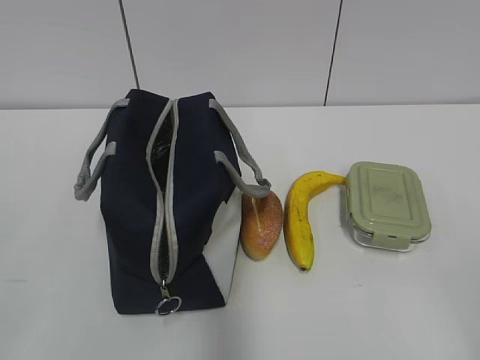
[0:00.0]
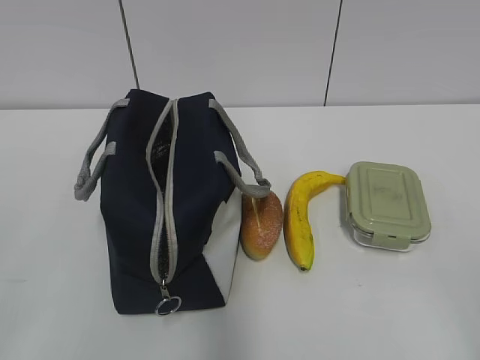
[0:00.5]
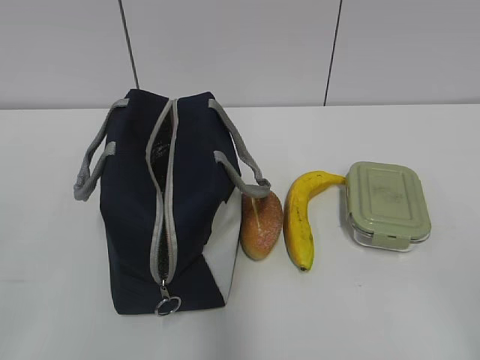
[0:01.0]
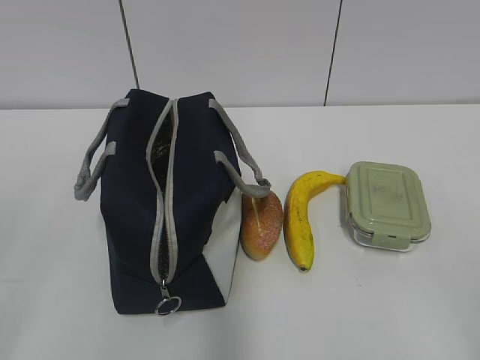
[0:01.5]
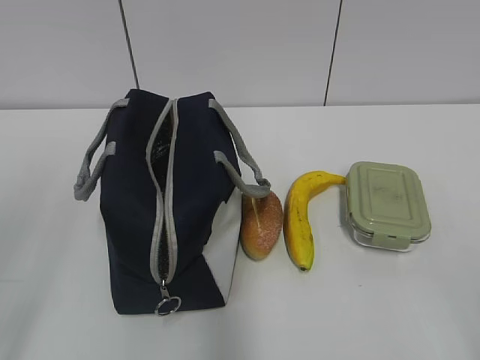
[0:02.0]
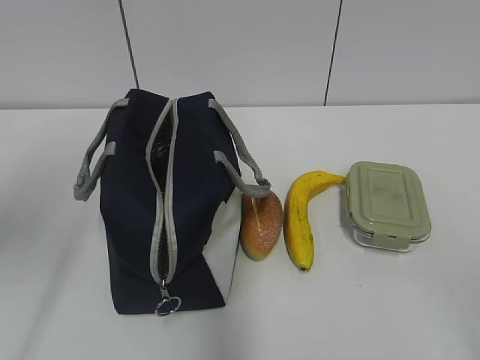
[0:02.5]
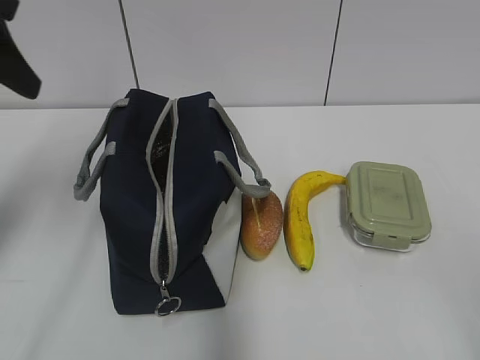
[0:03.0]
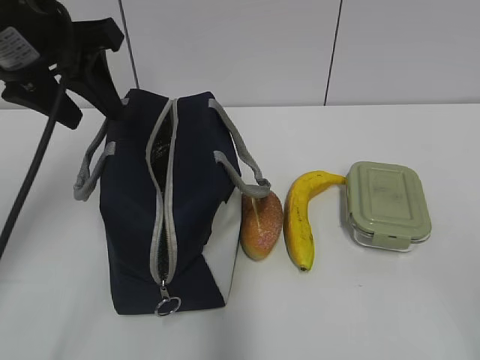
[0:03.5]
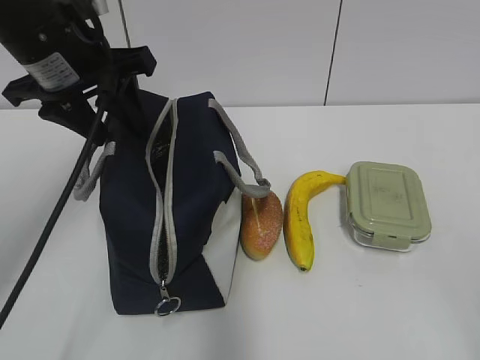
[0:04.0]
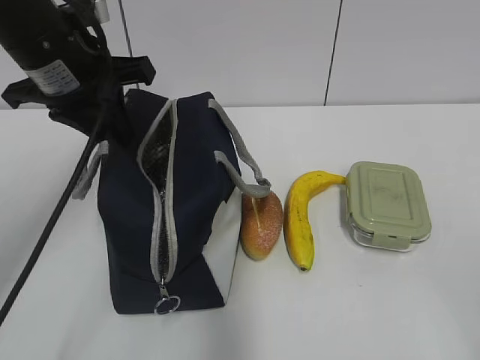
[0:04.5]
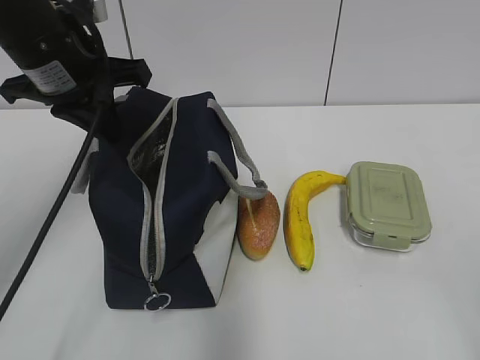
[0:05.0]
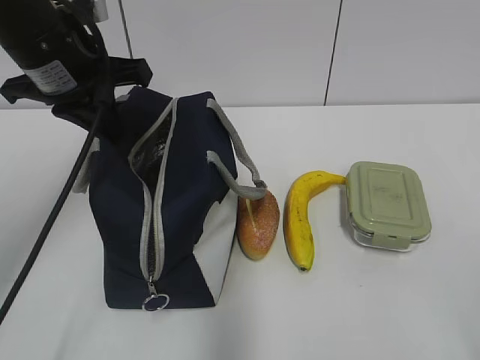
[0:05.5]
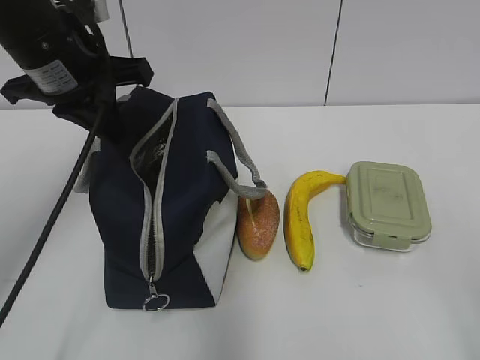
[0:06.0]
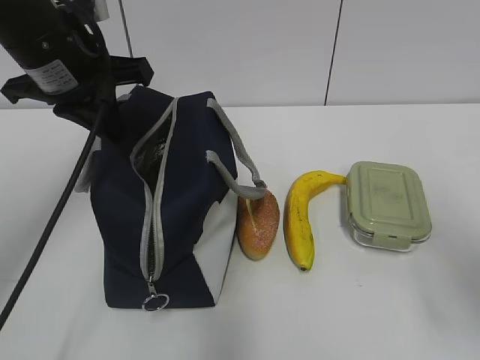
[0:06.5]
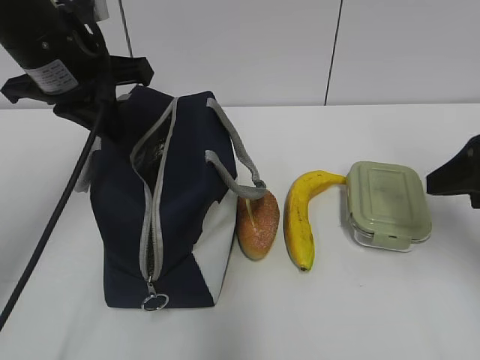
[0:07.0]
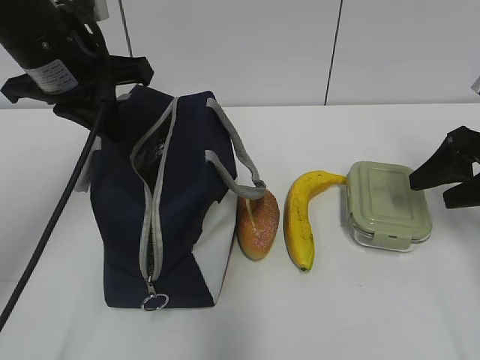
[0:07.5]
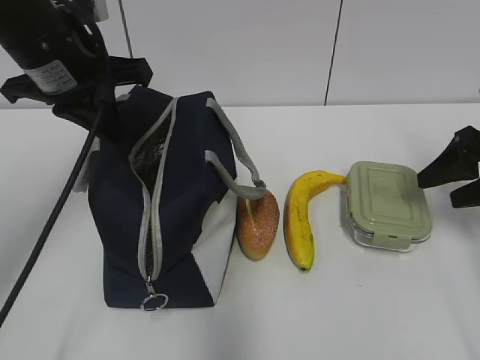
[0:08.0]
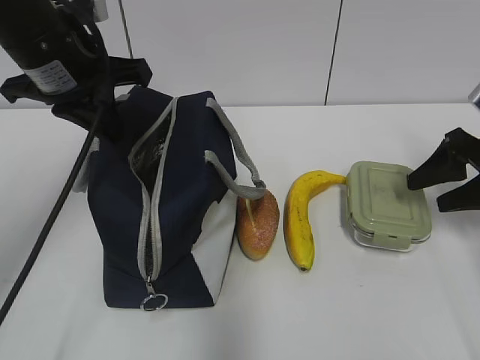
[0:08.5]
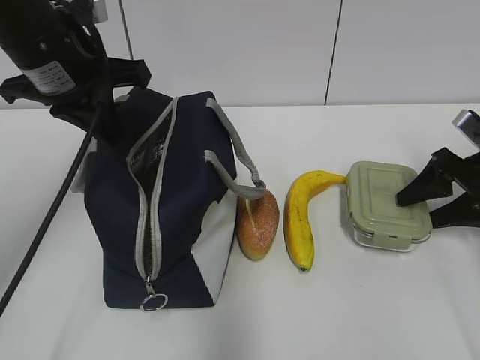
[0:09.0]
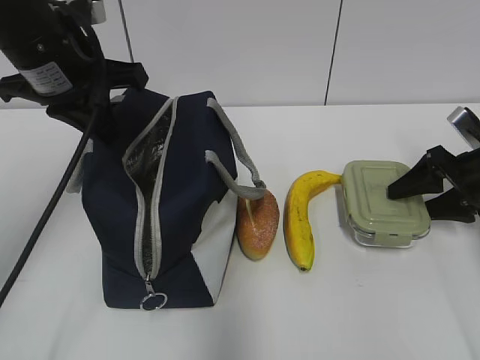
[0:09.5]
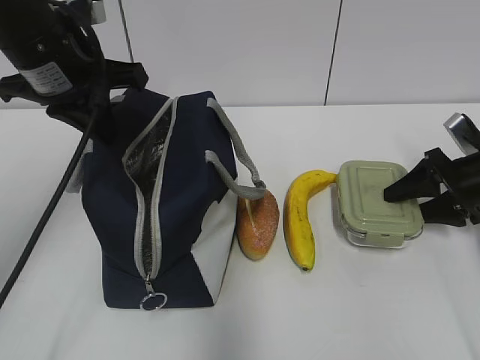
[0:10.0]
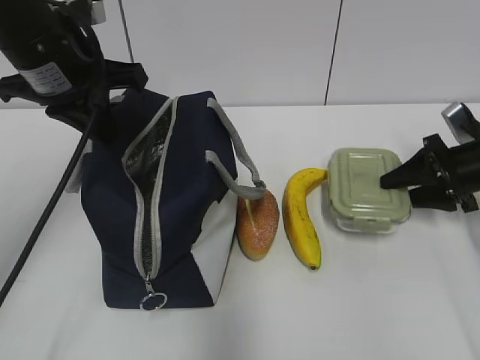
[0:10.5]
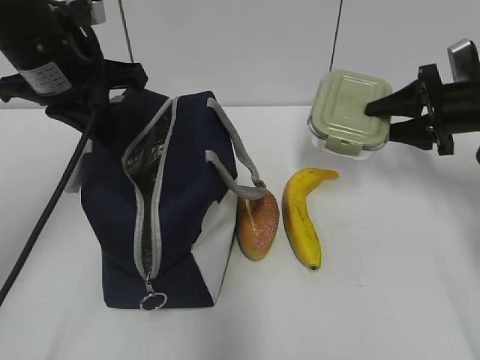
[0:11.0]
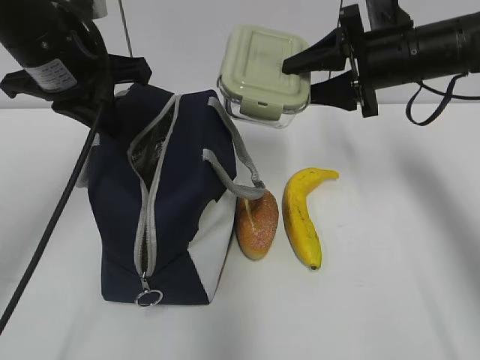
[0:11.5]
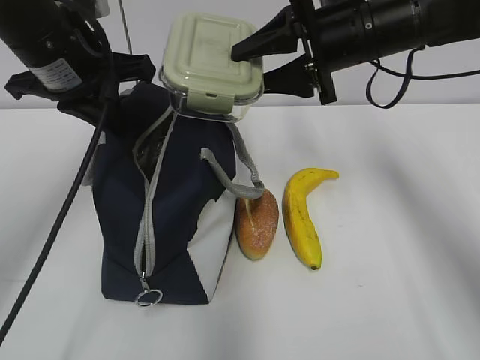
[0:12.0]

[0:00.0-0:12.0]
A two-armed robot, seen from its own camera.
Step, 0:00.0 to 0:09.5: Grab the lunch box with your right hand.
0:02.0 to 0:04.0: The left gripper heads forward and to the right, covering some 25 cm.
0:04.0 to 0:06.0: The left gripper closes its fingers.
0:06.0 to 0:08.0: The right gripper goes some 30 cm forward.
0:08.0 to 0:10.0: The right gripper is displaced downward by about 5 cm.
0:10.0 to 0:12.0: The right gripper heads to the left and upward, covering some 25 cm.

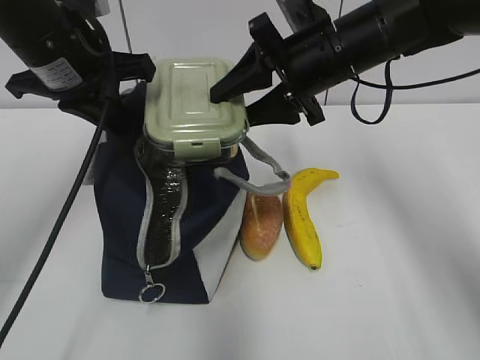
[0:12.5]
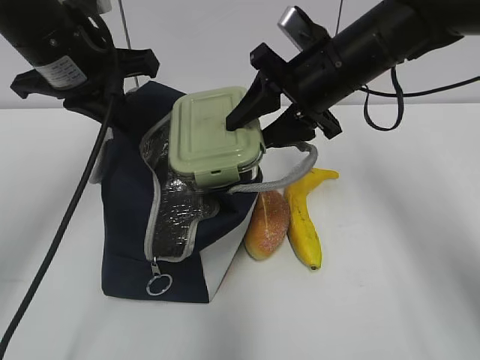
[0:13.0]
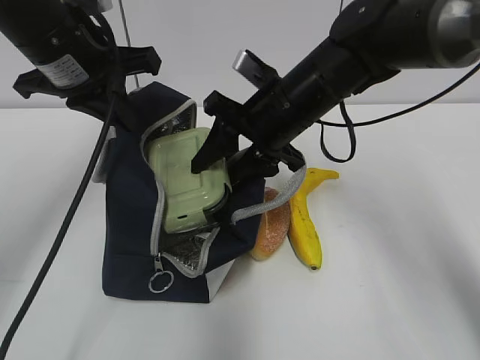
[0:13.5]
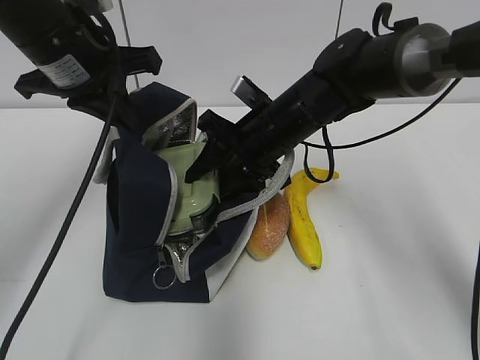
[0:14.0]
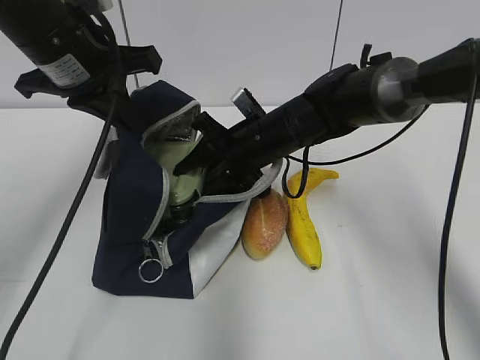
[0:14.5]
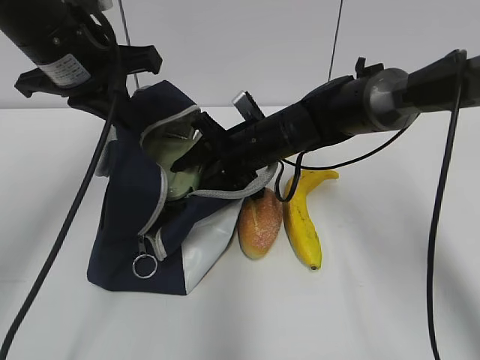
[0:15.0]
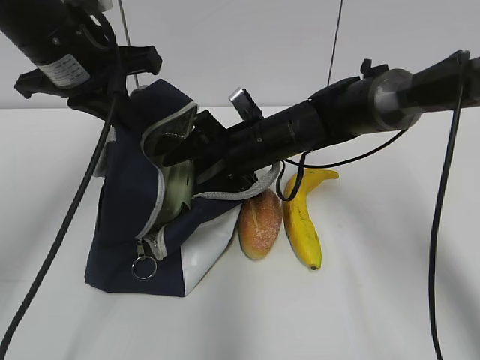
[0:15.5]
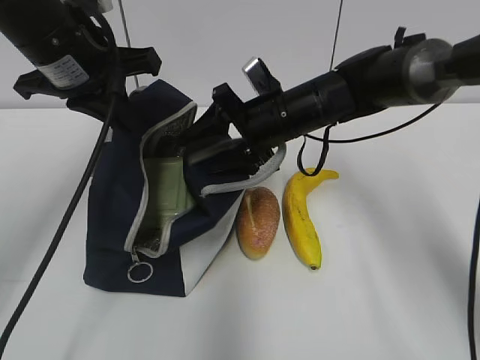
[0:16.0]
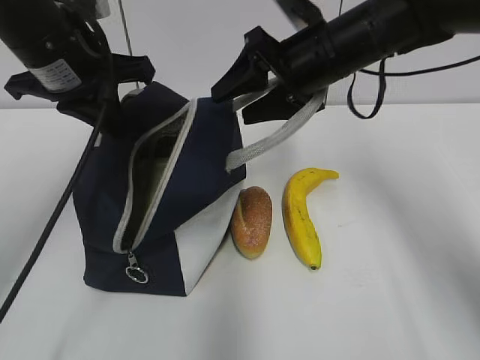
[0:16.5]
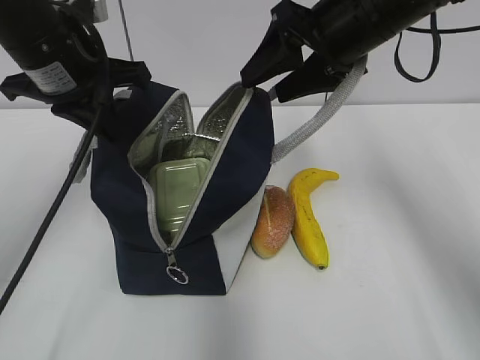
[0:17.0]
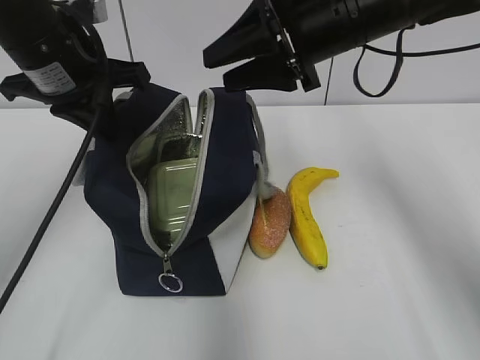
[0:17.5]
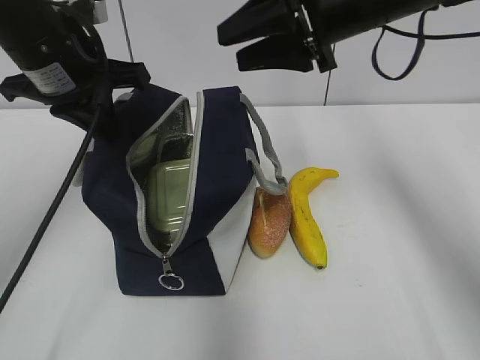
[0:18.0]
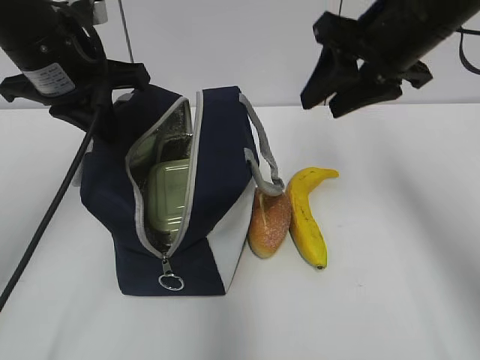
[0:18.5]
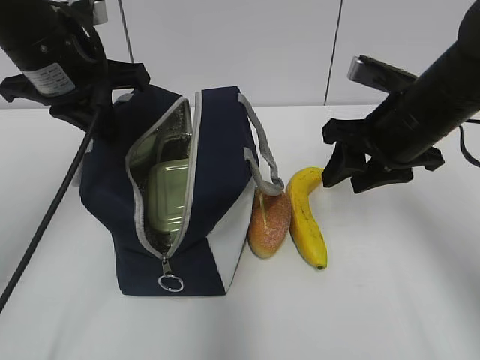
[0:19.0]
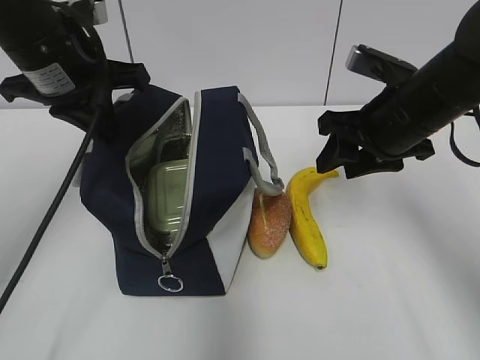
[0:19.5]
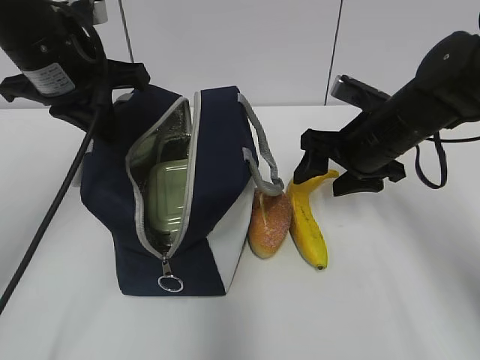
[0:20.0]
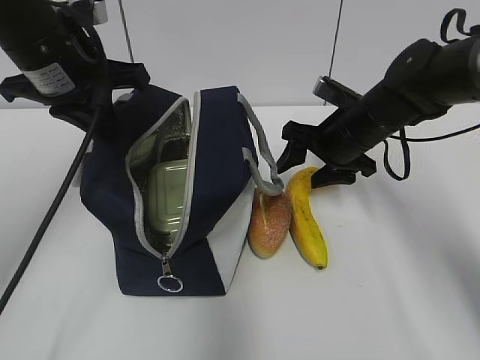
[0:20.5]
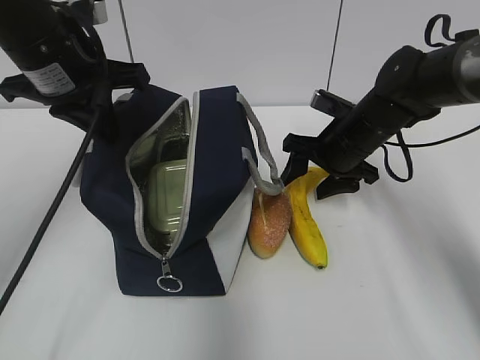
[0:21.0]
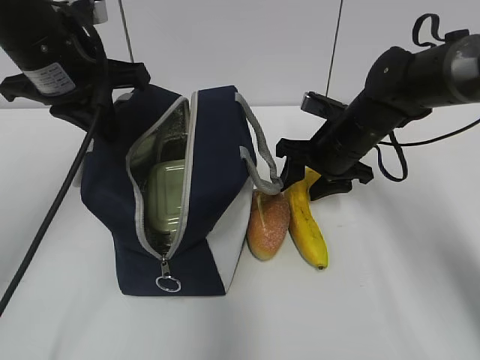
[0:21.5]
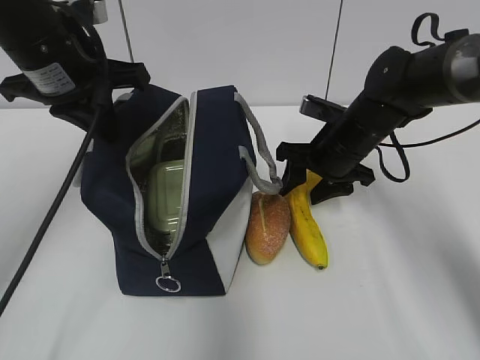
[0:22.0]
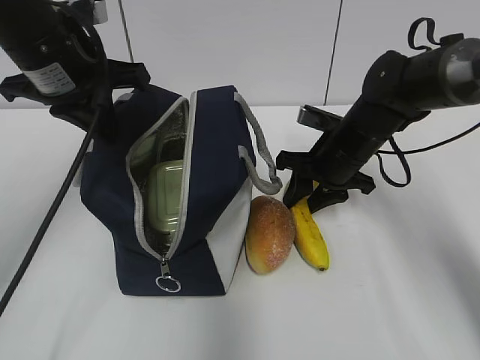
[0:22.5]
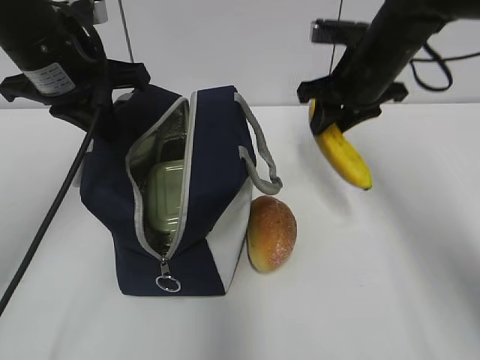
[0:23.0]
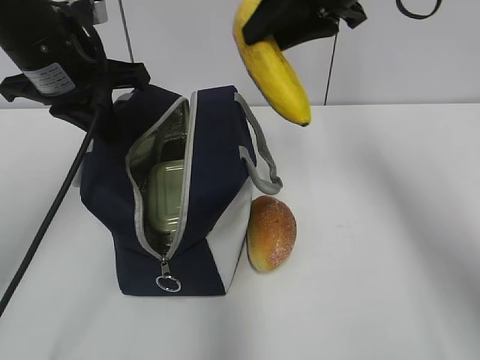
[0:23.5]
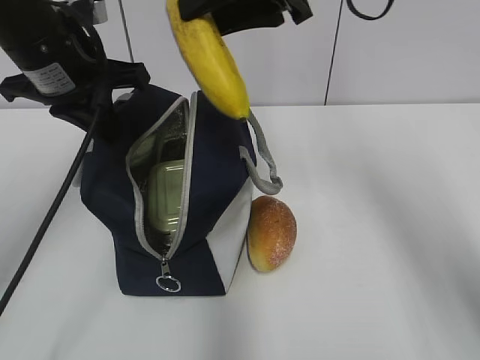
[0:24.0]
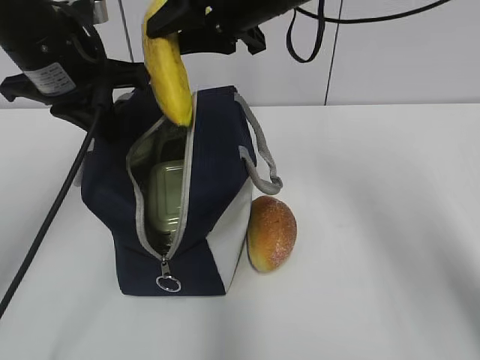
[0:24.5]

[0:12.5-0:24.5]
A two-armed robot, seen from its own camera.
Step, 0:13.0 to 0:16.5: Place it into the bag with your right hand.
Step, 0:17.0 to 0:21.5: Grab the banana with your right hand.
0:12.5 to 0:14.5: The right gripper travels downward and to the left by some 15 cm.
0:14.5 to 0:16.5: The right gripper travels upward and to the right by roughly 15 cm.
0:16.5 to 0:18.5: The right gripper moves to the right, roughly 5 cm.
0:18.5 to 0:20.5: The right gripper heads downward and forward, covering roughly 15 cm.
0:20.5 to 0:22.5: The right gripper closes.
0:22.5 to 0:24.5: The right gripper moves upward and to the left, about 20 cm.

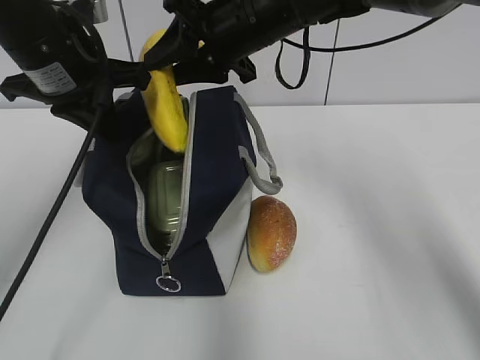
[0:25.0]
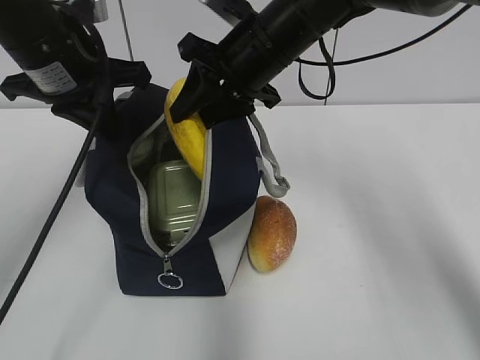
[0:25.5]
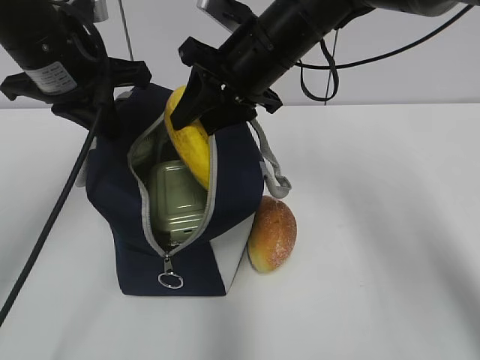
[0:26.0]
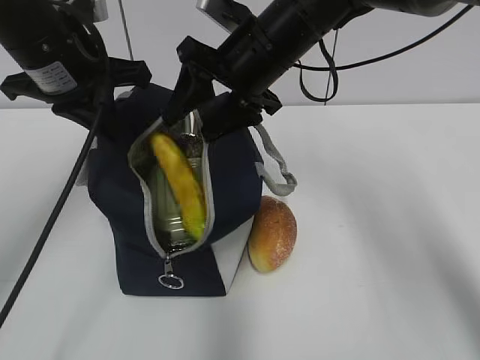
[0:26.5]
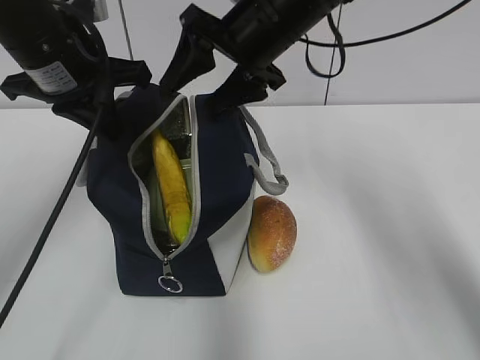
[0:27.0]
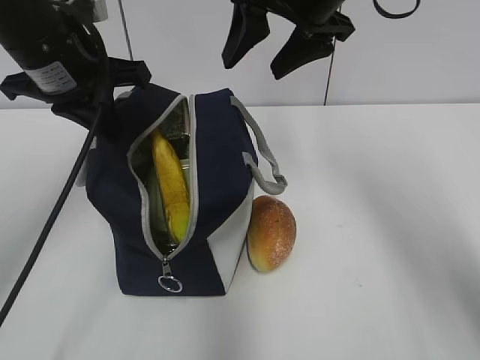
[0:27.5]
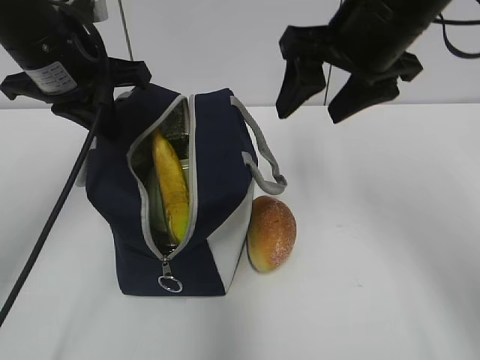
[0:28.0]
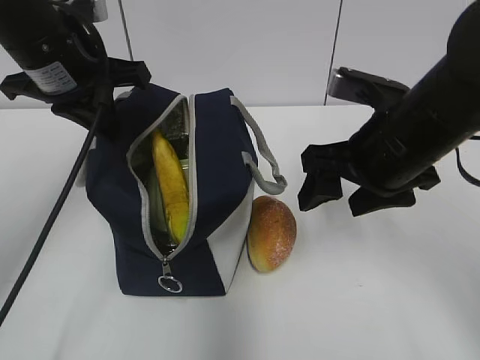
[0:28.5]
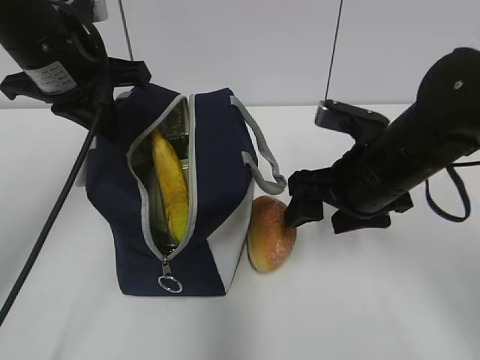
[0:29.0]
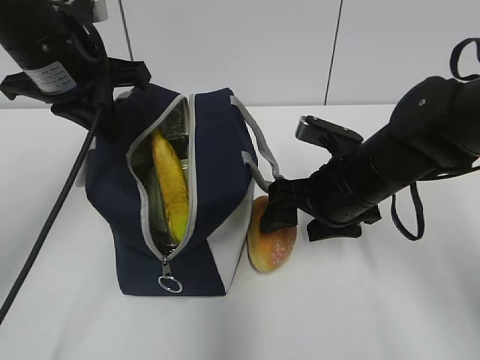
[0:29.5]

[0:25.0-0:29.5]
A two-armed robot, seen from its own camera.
Step, 0:25.0 to 0:27.0: Place it into the bag with your right hand.
0:25.0 to 0:27.0: The right gripper opens.
0:27.0 to 0:29.5: The right gripper goes some 20 cm downward, backward and to the right.
